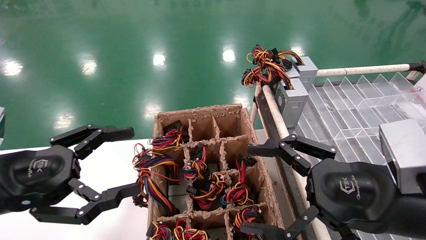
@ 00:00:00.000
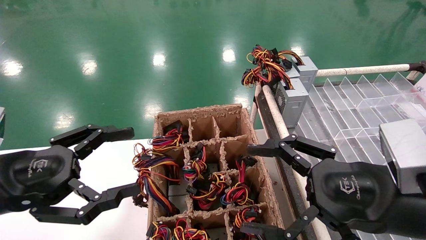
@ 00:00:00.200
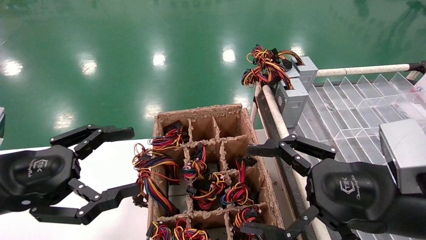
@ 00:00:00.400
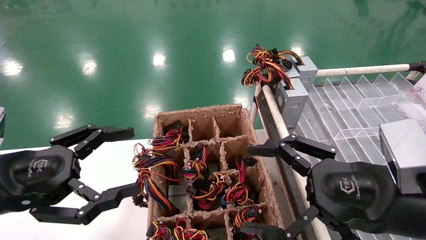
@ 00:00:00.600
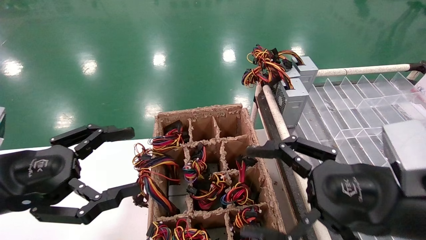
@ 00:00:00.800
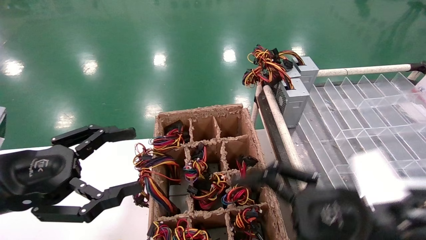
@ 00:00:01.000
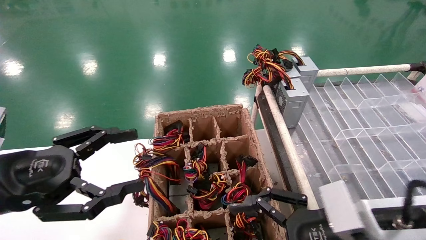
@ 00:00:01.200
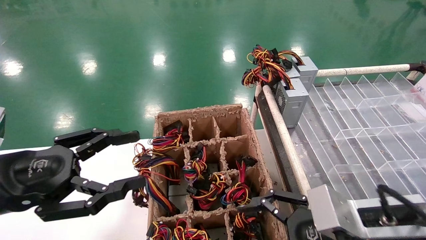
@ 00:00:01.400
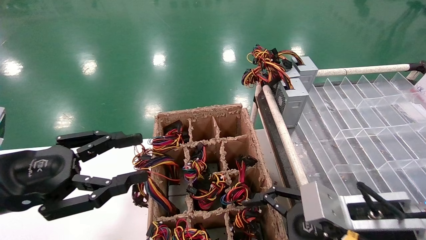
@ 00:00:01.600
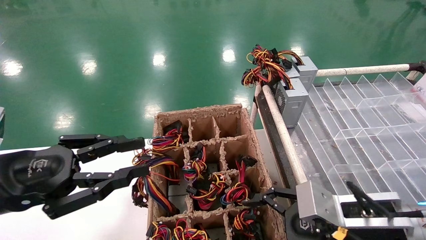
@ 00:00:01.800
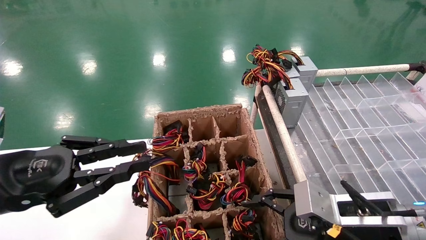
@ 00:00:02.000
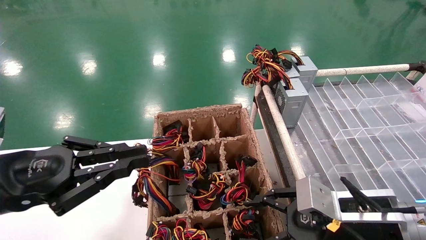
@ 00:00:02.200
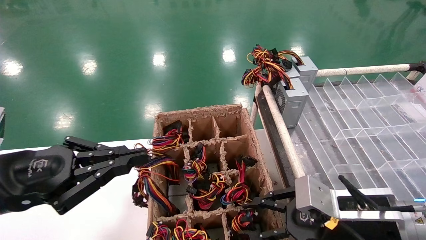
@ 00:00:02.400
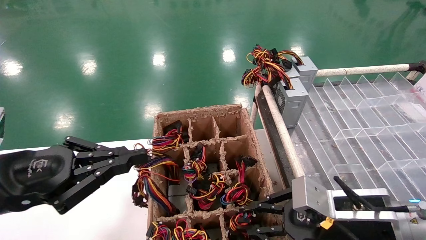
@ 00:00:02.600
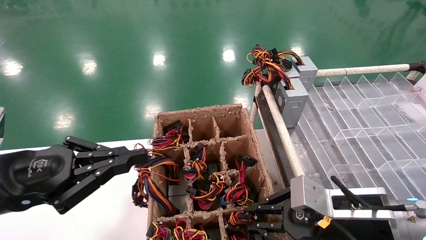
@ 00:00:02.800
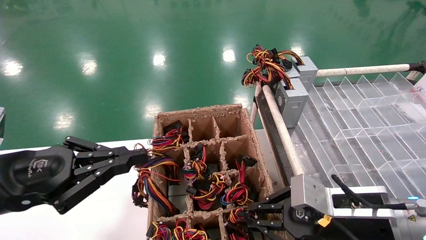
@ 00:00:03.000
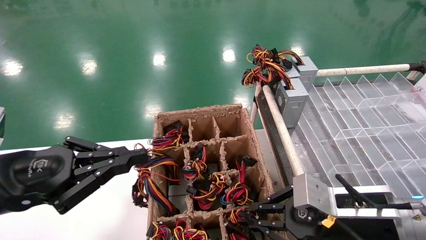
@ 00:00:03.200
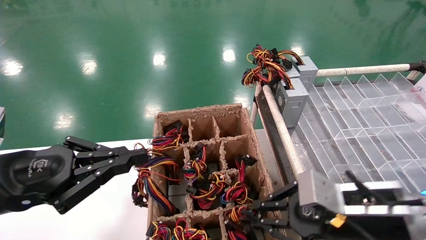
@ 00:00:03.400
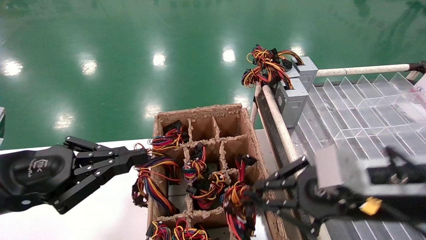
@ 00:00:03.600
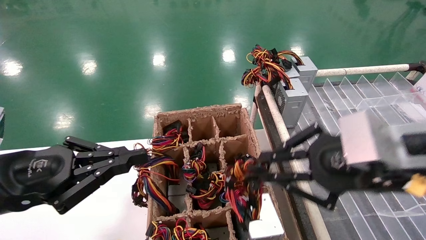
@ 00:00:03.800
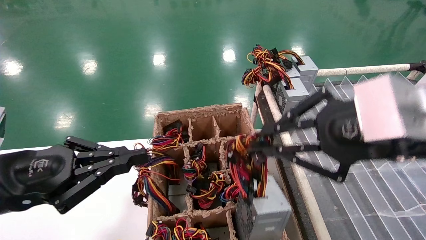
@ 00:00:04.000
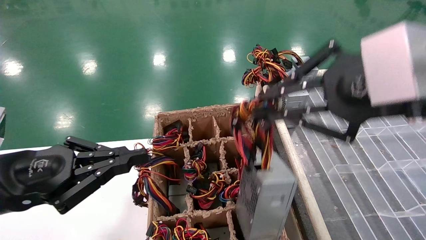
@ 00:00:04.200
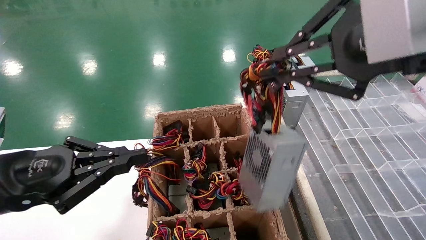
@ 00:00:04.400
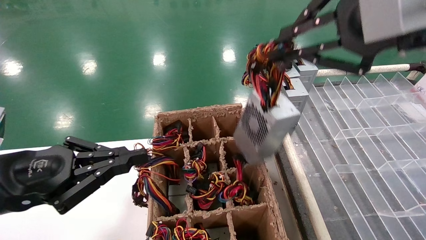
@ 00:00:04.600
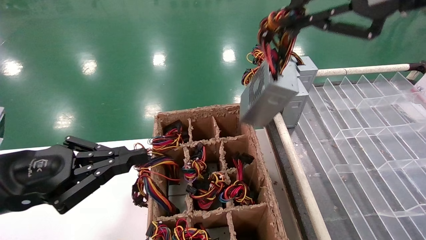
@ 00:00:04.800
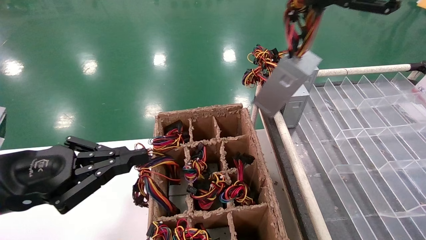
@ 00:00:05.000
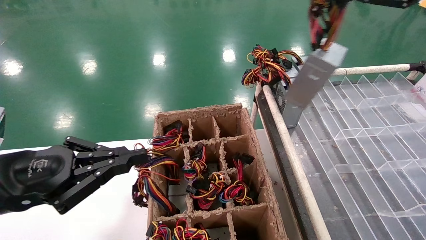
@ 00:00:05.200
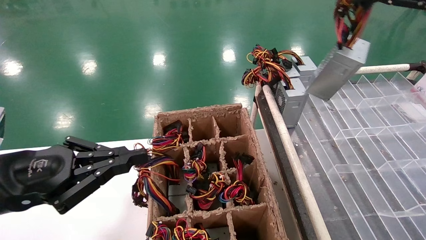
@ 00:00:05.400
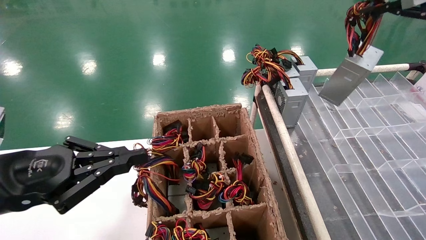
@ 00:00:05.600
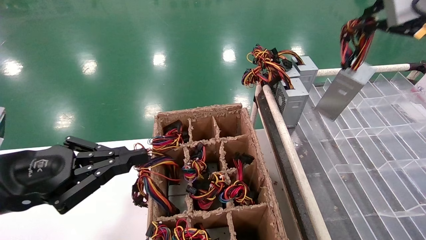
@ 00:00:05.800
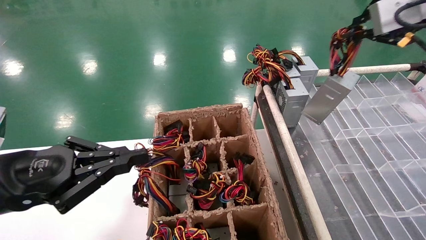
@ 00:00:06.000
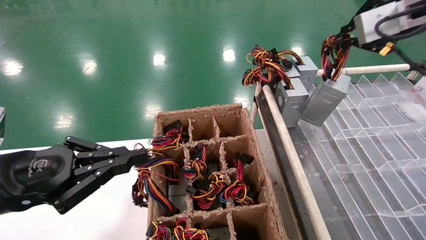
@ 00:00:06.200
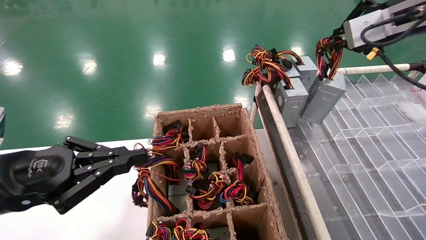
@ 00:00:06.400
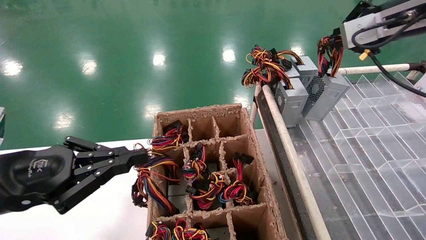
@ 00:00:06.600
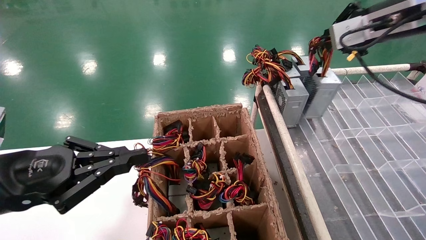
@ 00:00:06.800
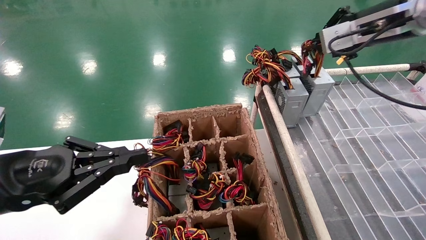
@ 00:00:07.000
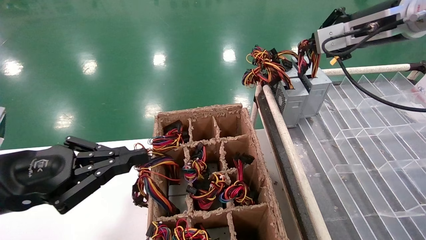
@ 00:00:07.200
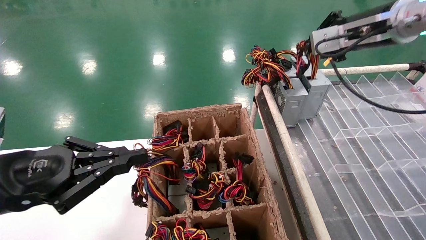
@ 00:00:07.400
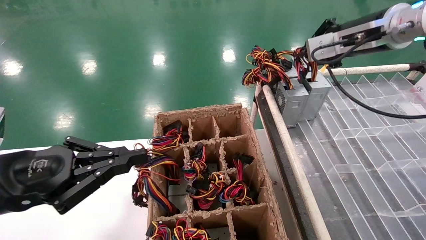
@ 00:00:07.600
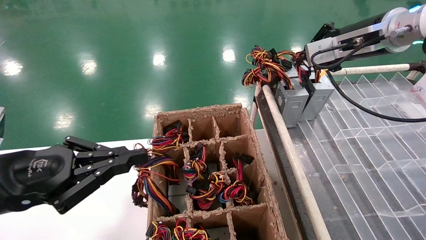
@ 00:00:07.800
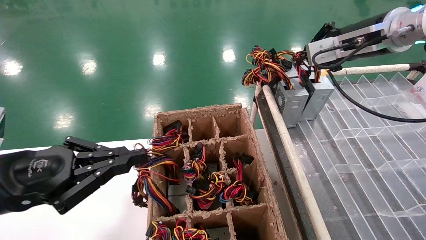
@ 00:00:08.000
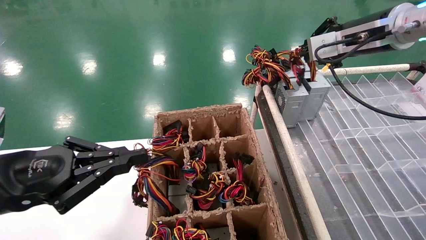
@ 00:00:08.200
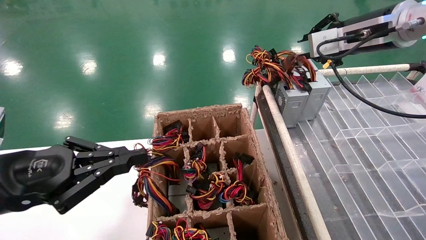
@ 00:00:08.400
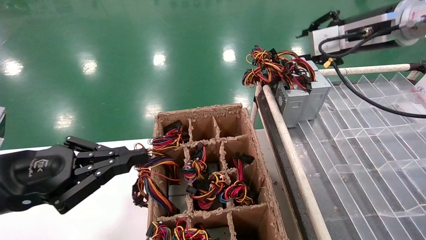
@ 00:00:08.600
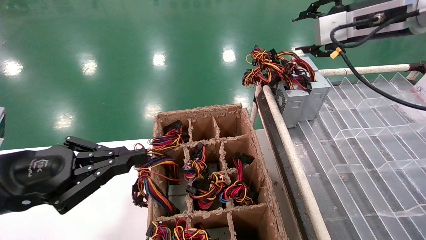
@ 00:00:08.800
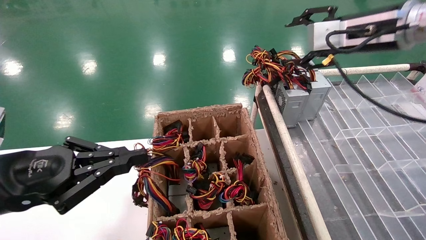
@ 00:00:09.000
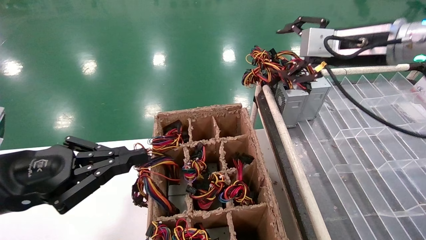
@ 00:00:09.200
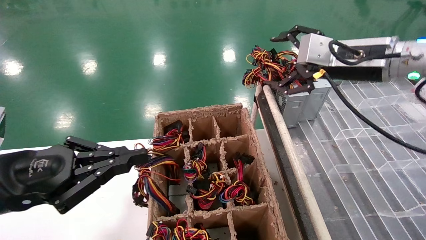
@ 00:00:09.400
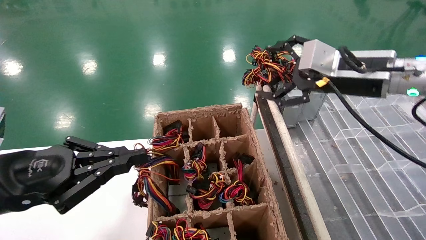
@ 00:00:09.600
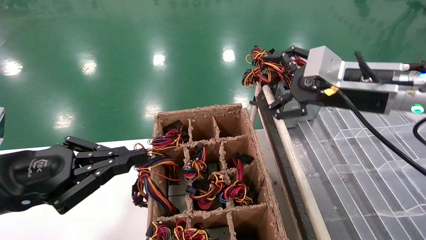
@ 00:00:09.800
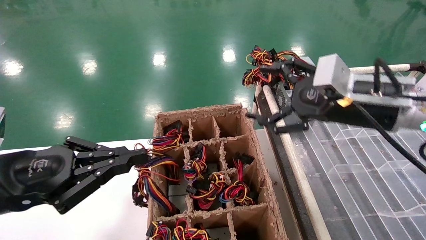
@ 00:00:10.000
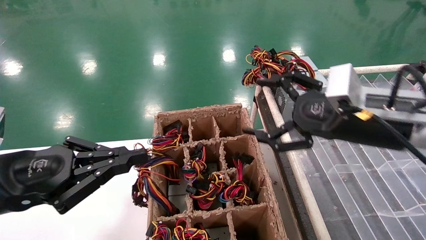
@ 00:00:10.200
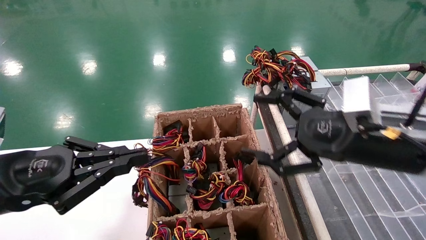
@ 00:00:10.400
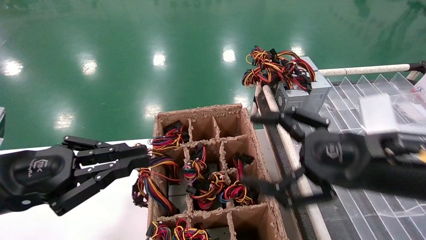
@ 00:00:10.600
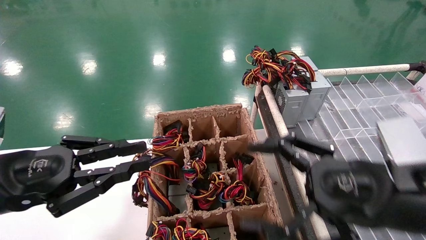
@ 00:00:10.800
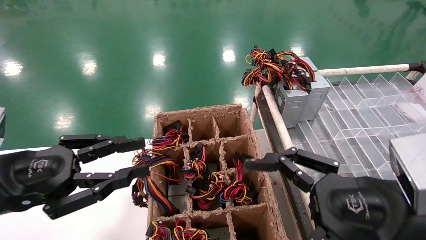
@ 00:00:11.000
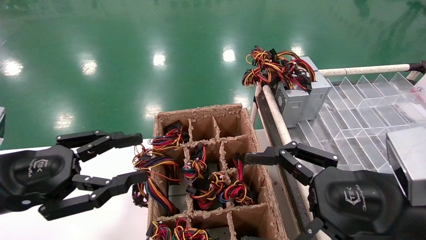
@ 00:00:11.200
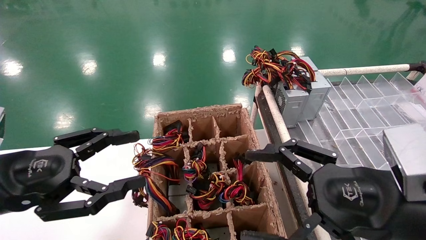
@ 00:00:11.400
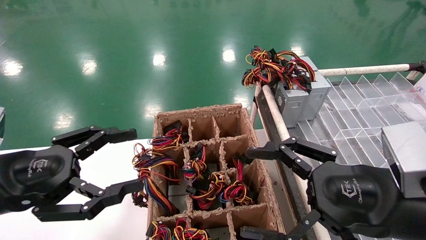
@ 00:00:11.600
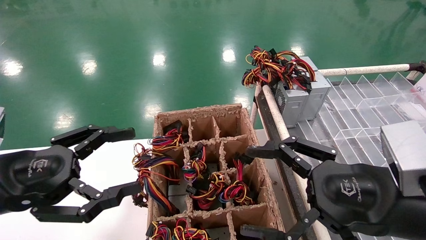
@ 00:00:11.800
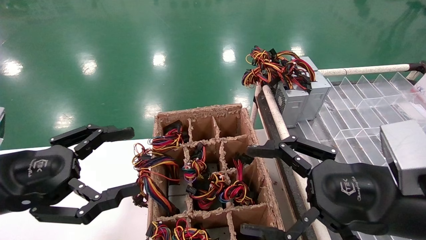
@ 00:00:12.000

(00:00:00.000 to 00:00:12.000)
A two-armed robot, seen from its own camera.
Step, 00:00:01.200 - 00:00:02.800: Grab the main unit power supply from the containment box.
Step, 00:00:03.000 - 00:00:08.400: Place the main unit power supply in the designated area.
00:00:00.000 - 00:00:01.600: The right gripper goes approximately 5 cm downward.
00:00:01.600 - 00:00:03.000: The left gripper closes its fingers. The right gripper closes up.
00:00:03.000 - 00:00:04.400: The right gripper moves upward, some 30 cm.
00:00:04.400 - 00:00:06.000: The right gripper goes about 15 cm forward, to the right and upward.
00:00:06.000 - 00:00:07.600: The right gripper goes about 10 cm forward and downward.
00:00:07.600 - 00:00:09.000: The right gripper opens up.
00:00:09.000 - 00:00:10.400: The right gripper goes about 20 cm downward and backward, and opens its fingers.
00:00:10.400 - 00:00:12.000: The right gripper shifts approximately 5 cm backward, while the left gripper opens up.

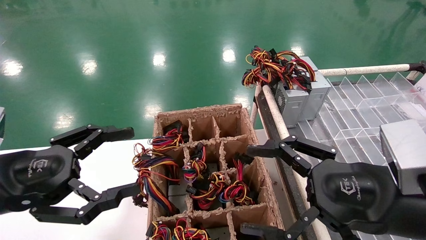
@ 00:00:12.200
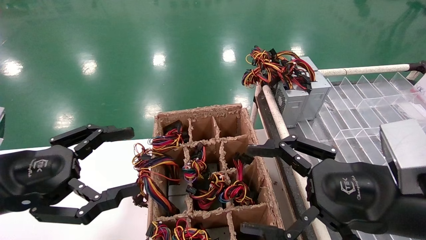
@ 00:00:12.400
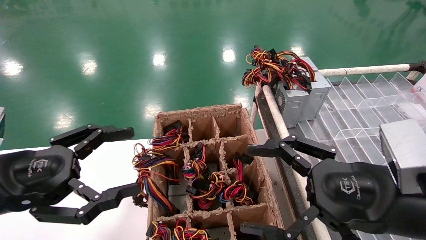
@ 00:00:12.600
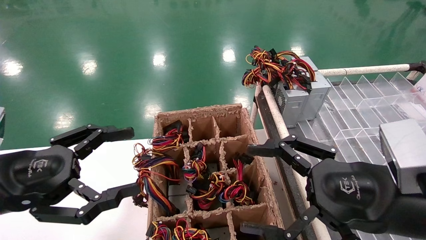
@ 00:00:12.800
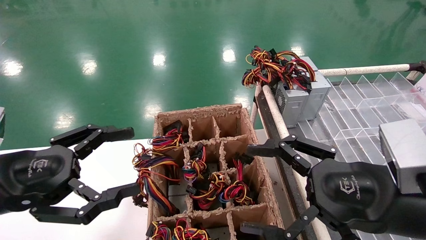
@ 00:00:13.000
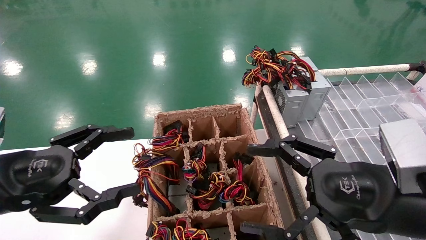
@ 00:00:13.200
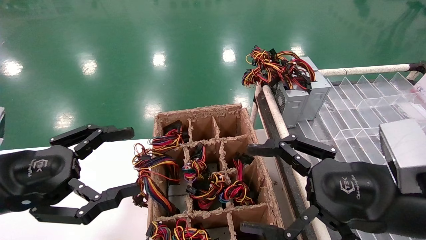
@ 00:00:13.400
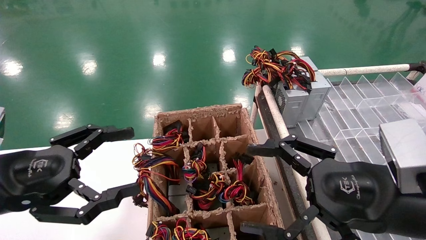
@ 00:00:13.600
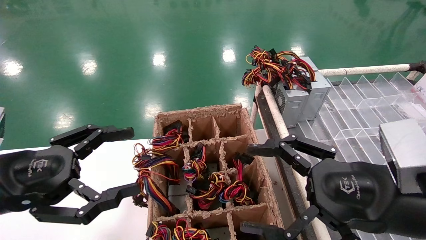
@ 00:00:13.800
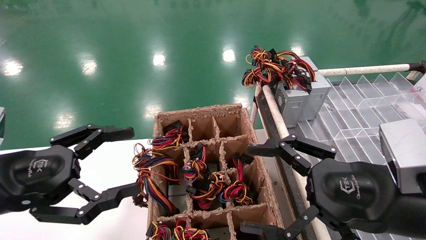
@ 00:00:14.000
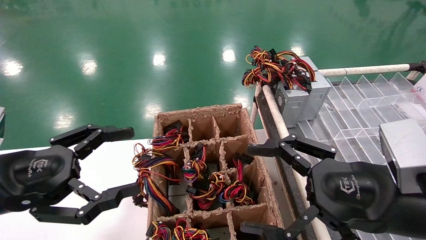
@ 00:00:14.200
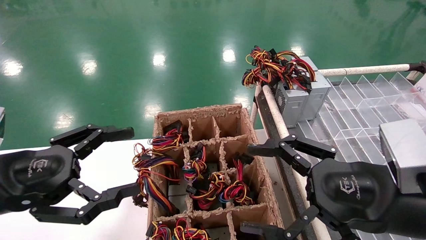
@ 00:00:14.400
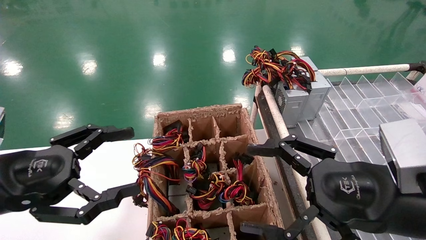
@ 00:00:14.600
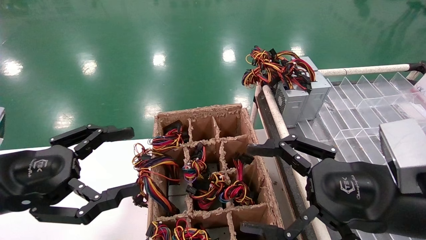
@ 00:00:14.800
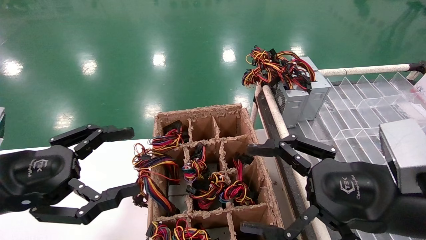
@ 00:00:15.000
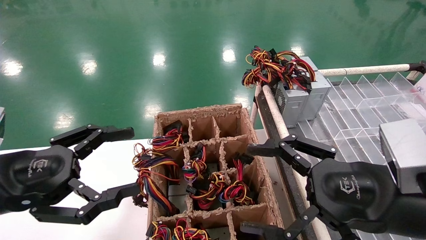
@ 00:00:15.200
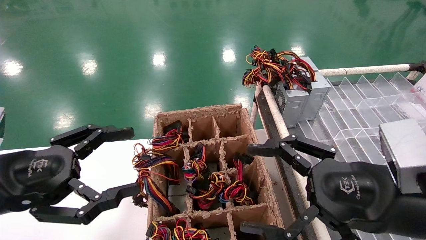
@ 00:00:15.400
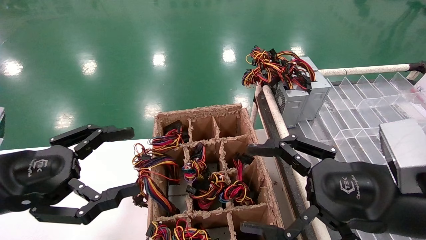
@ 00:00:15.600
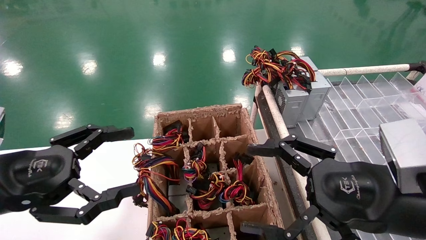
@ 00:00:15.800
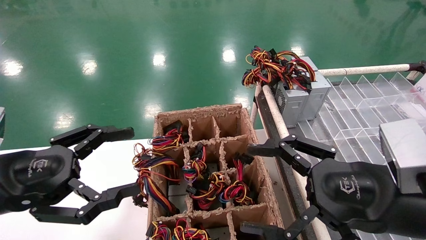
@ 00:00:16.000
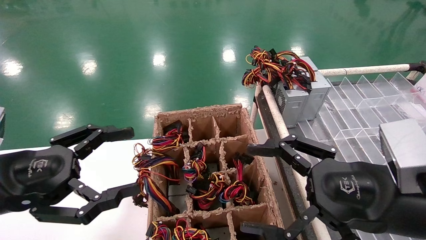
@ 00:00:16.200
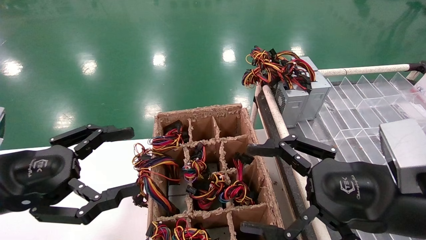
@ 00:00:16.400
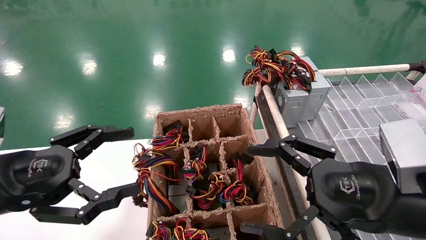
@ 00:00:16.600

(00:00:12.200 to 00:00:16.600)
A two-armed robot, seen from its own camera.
00:00:12.200 - 00:00:16.600: Neither gripper changes place.
